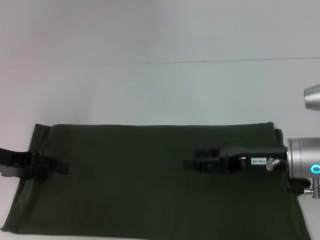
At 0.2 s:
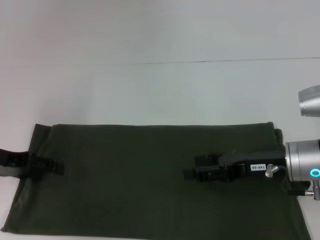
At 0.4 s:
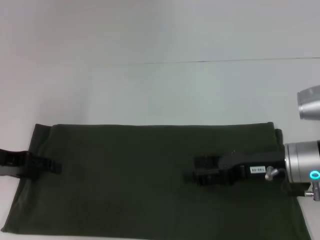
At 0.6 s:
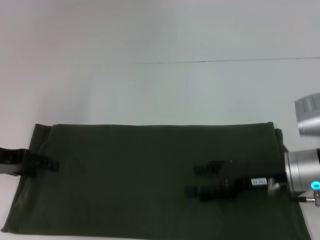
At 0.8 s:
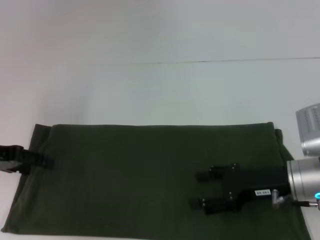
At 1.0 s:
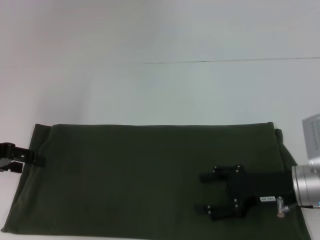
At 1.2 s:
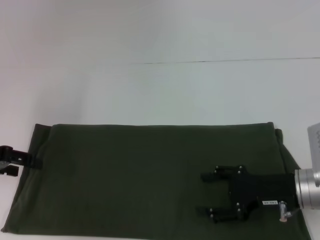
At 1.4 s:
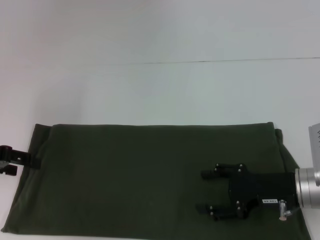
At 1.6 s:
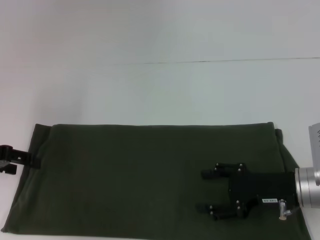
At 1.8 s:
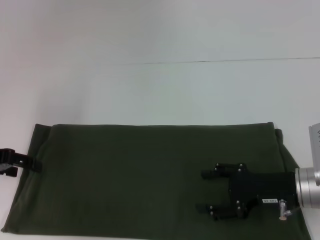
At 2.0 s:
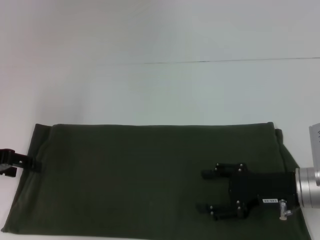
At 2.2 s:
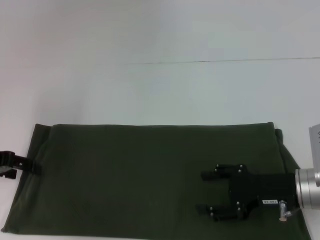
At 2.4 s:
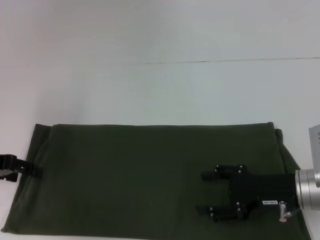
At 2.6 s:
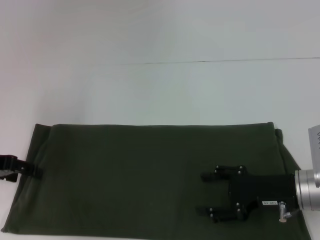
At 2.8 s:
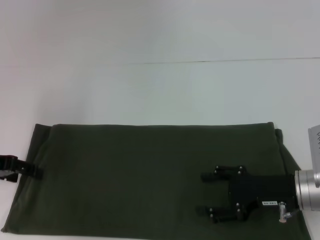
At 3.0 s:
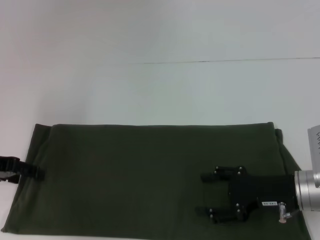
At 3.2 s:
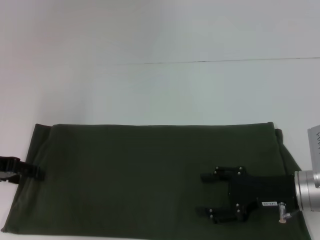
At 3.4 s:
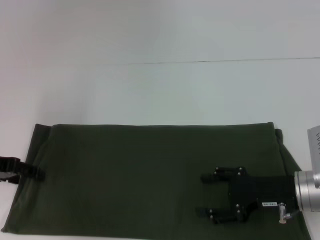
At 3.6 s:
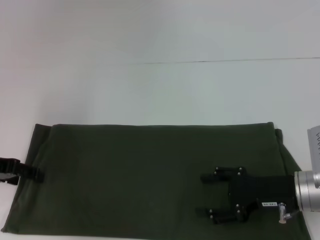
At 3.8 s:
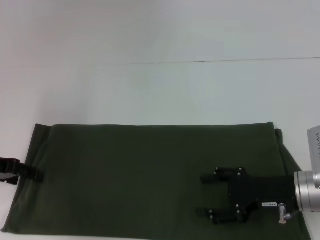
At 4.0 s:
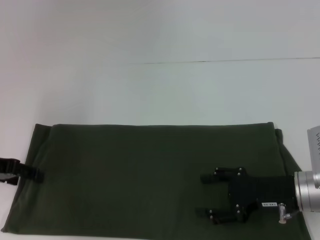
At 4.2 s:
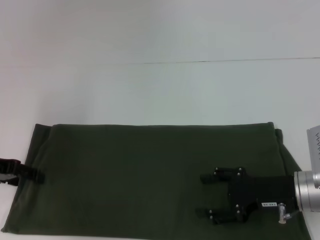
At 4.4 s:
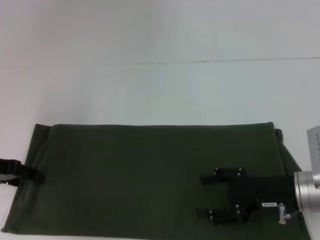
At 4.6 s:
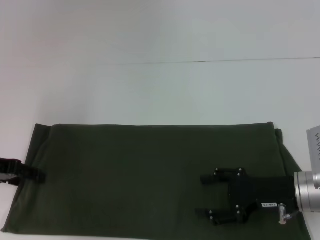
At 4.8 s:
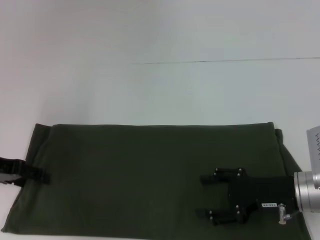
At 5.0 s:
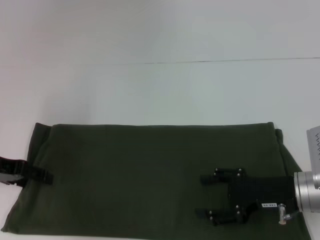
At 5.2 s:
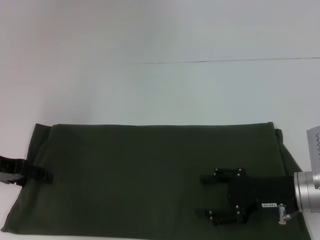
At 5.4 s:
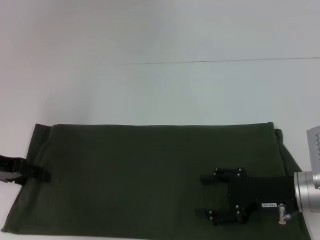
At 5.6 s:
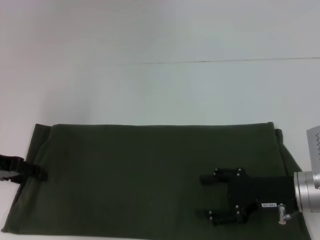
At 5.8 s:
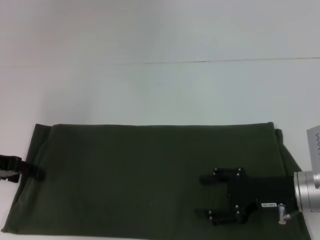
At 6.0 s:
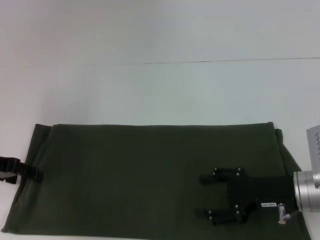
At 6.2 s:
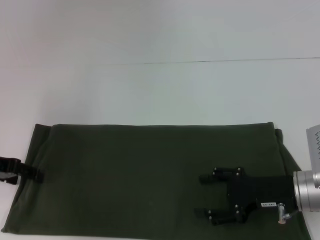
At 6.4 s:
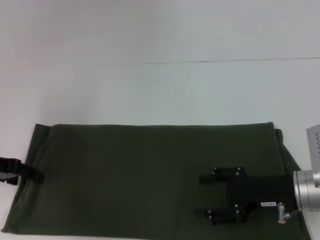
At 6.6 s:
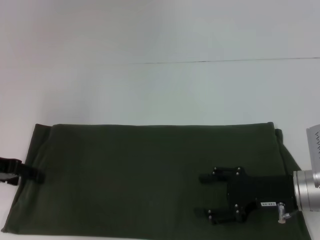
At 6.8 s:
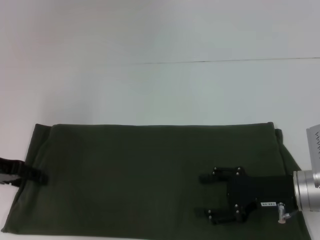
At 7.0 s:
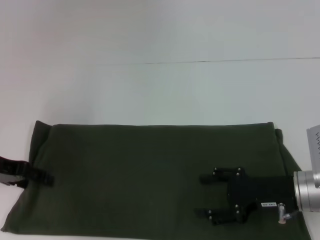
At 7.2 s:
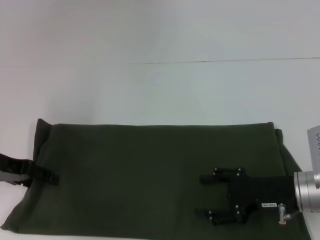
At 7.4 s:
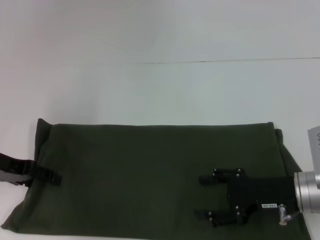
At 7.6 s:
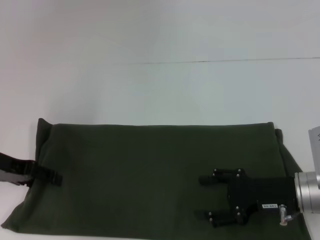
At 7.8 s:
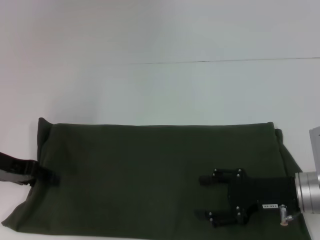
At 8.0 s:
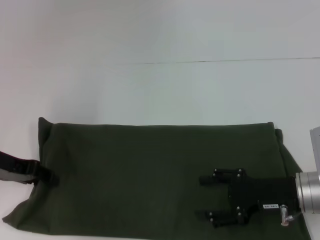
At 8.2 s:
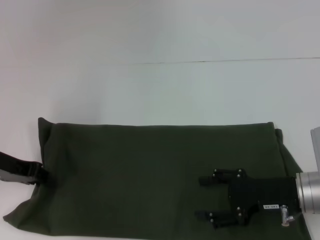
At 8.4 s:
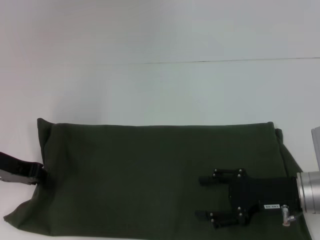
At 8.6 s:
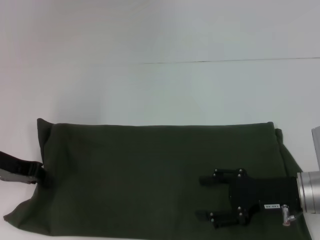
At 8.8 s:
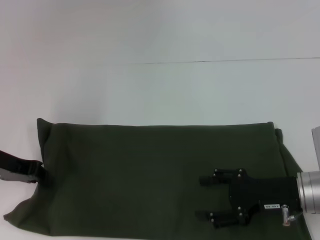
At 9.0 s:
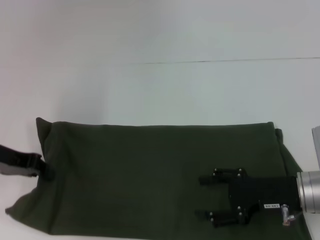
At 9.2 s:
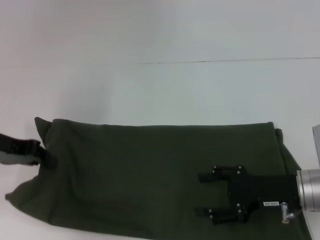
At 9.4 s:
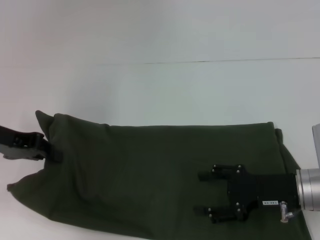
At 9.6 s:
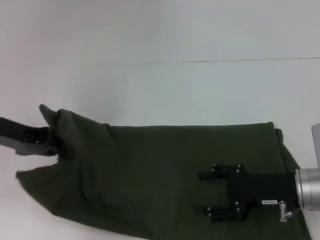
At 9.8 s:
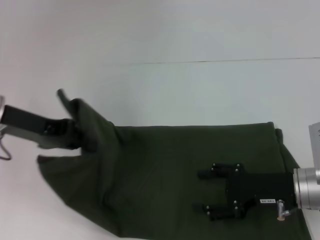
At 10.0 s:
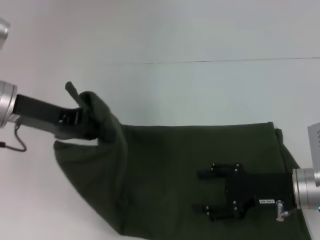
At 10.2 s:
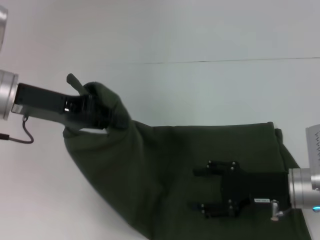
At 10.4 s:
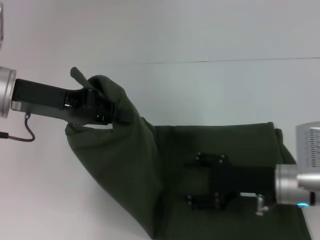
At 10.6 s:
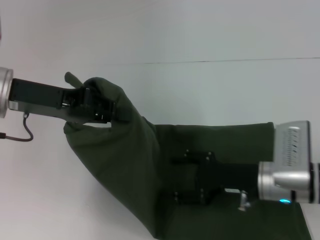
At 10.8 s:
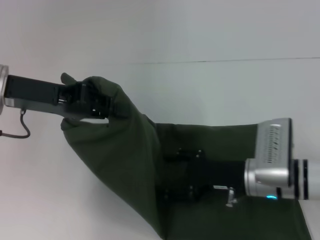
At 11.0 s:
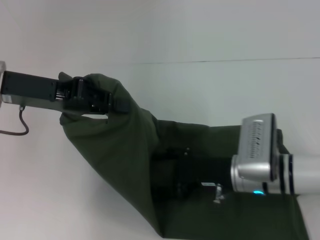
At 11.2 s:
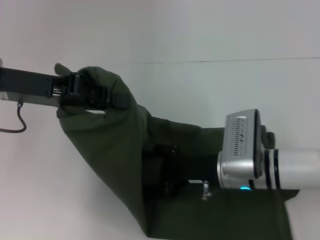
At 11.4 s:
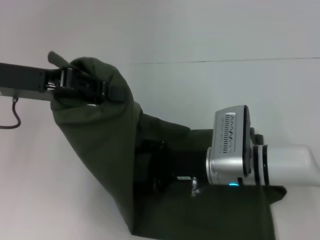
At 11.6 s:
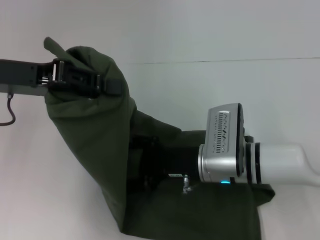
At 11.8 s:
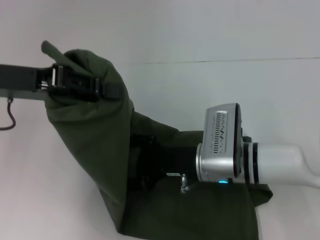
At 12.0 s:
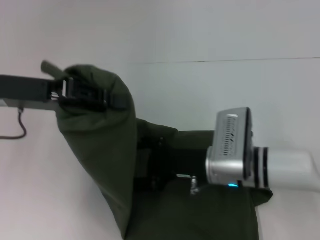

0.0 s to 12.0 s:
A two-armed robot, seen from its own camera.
1.6 to 3.0 s: The grippers stay close to where they were, moving slightly.
3.0 to 6.0 s: Both grippers stay about where they are.
6.0 to 7.6 s: The grippers make only small movements.
7.6 to 9.0 s: The left gripper closes up.
9.0 to 10.4 s: The left gripper moves upward and to the right, about 10 cm.
10.4 to 12.0 s: The right gripper heads to the left, covering approximately 10 cm.

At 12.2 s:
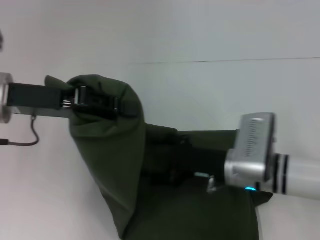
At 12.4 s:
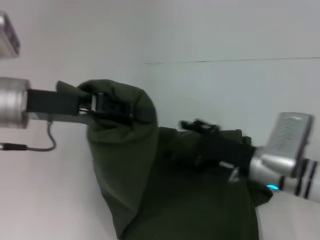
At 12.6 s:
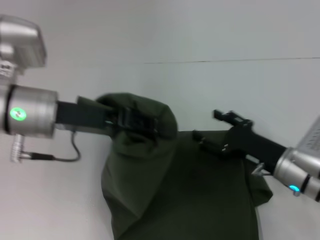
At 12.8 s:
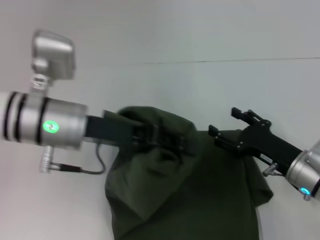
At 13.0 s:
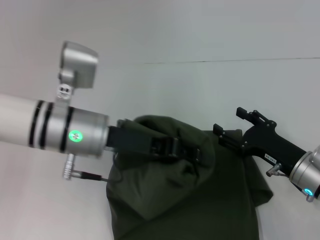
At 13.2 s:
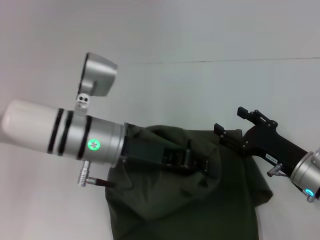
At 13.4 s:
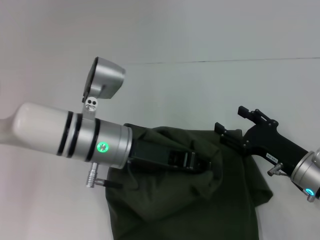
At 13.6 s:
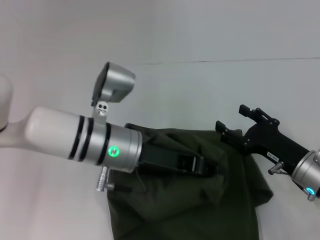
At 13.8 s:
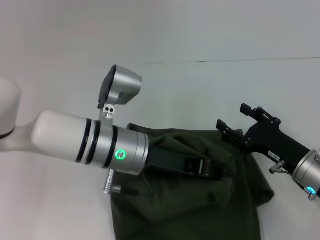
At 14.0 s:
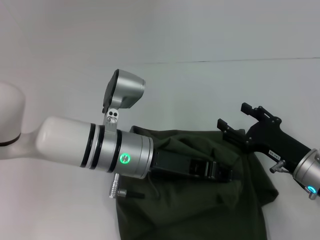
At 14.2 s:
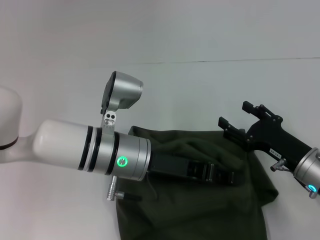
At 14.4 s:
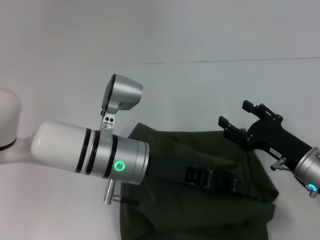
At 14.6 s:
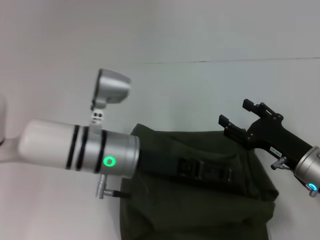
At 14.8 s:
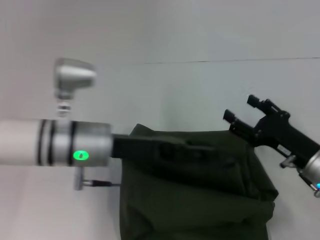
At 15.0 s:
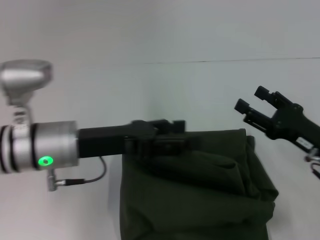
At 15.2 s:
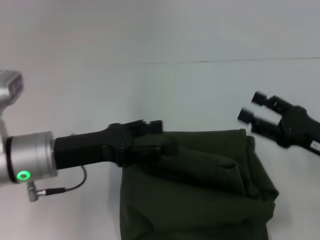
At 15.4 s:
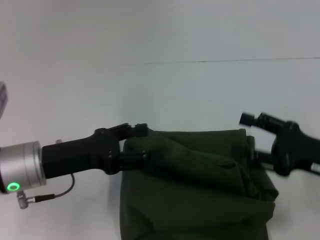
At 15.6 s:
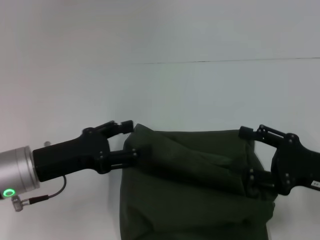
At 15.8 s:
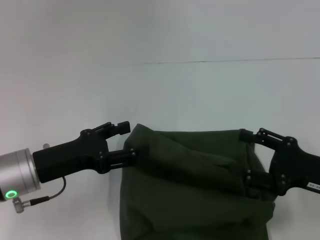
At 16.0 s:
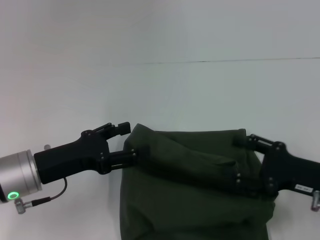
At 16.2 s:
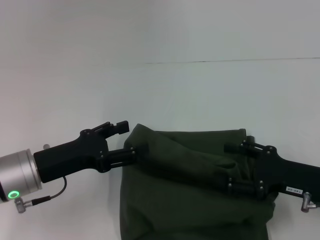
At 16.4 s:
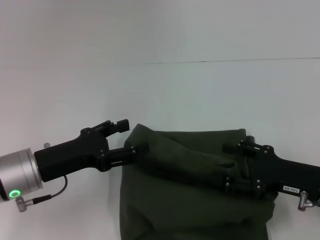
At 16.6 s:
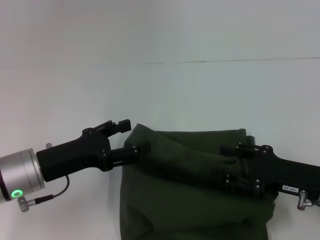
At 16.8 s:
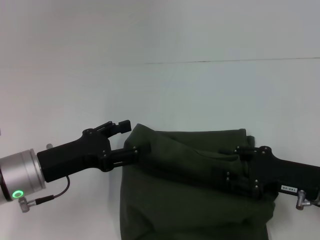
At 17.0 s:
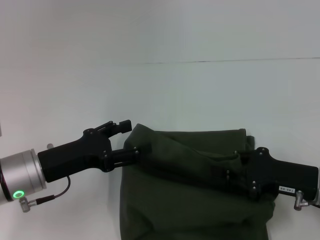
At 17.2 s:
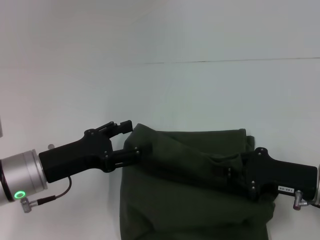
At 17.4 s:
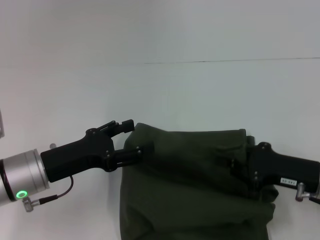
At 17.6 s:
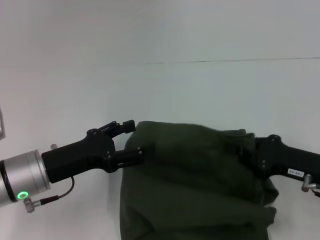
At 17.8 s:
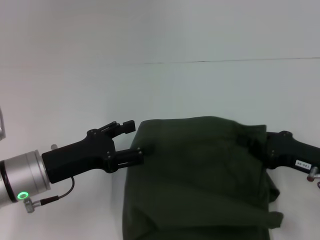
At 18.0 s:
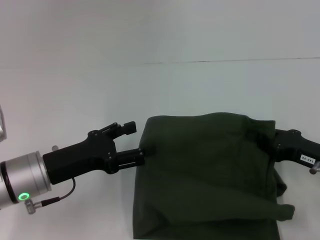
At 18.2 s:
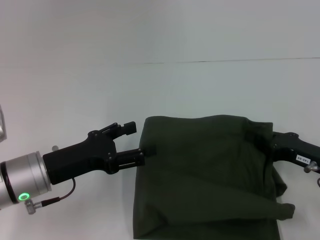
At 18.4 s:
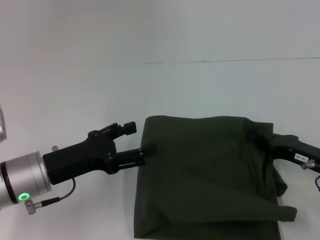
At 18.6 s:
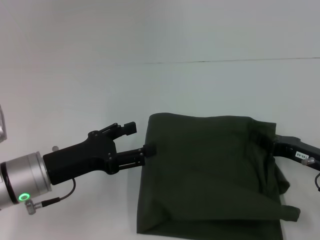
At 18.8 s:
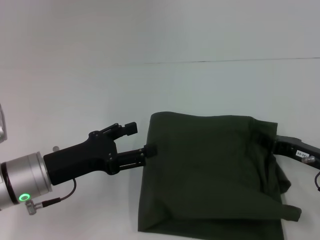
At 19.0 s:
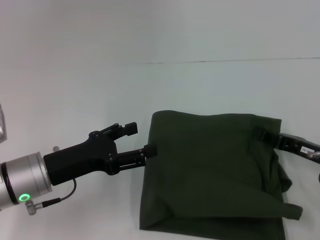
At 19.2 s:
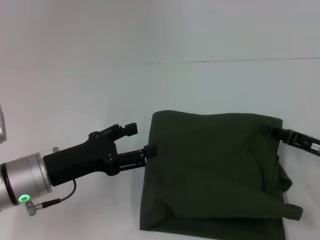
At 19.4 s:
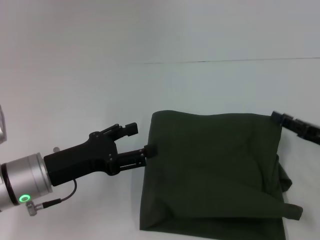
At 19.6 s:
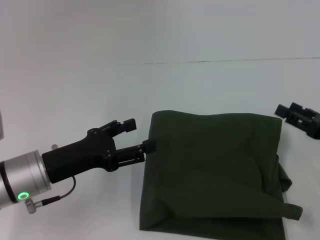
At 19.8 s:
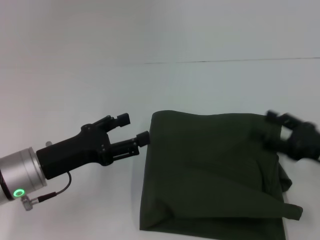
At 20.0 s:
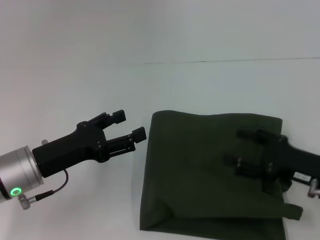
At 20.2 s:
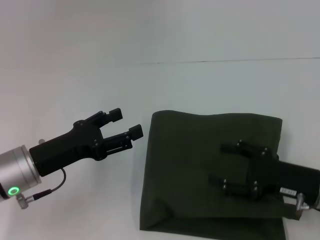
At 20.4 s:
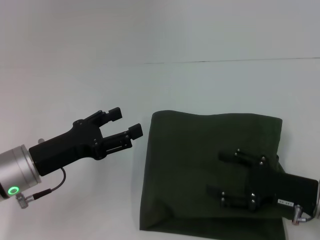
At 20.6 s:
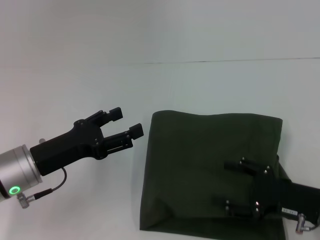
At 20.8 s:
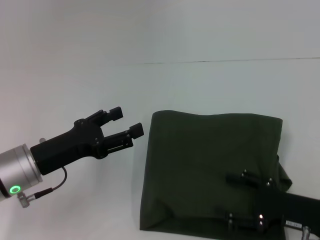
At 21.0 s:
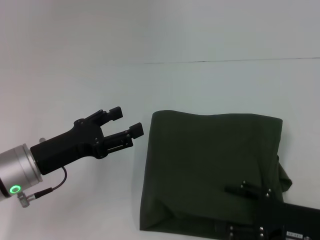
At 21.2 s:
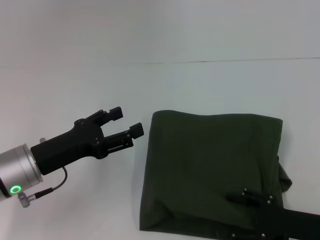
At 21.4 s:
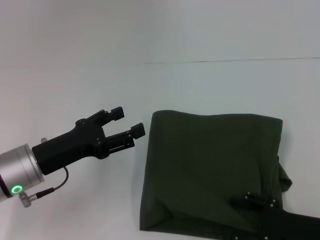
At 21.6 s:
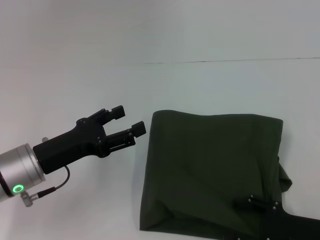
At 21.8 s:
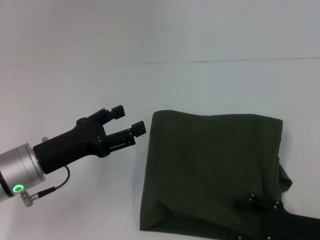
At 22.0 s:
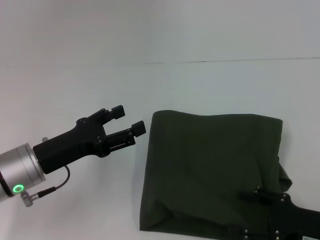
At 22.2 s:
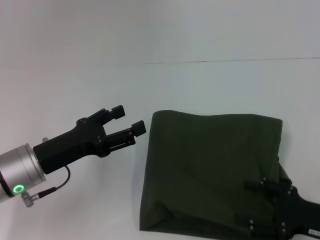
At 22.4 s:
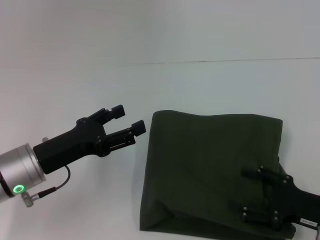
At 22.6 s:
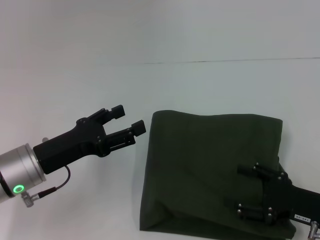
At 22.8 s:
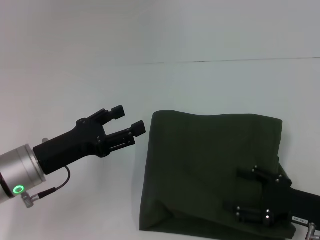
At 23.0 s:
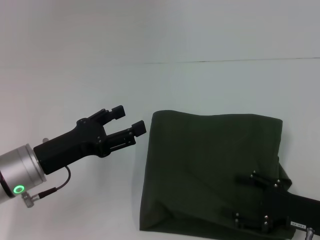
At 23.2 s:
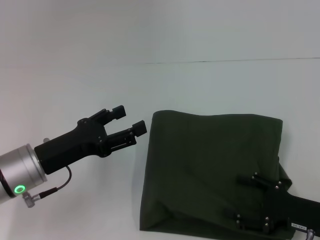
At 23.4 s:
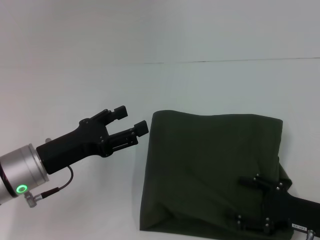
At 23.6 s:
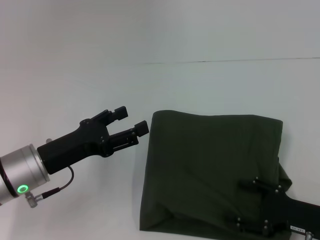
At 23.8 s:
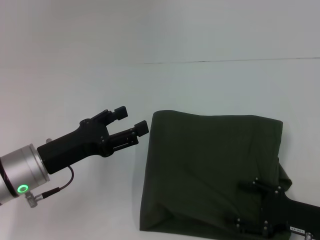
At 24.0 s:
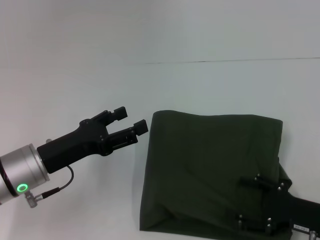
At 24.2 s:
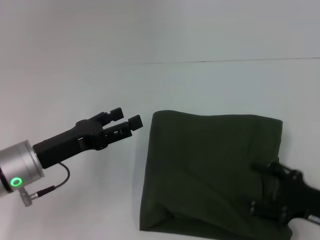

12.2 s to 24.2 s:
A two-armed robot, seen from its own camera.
Step, 12.2 to 14.4 s: Fold the clothes with your left hand.
12.2 to 13.8 s: The right gripper goes some 10 cm to the right. The left gripper travels to the right and downward by about 15 cm.
13.8 to 15.2 s: The right gripper heads upward, covering some 5 cm. The left gripper is displaced to the left by approximately 10 cm, and opens up.
16.6 to 18.2 s: The right gripper closes up.
18.2 to 19.8 s: The right gripper opens its fingers.
19.8 to 21.2 s: The right gripper goes some 10 cm backward and downward.
21.2 to 24.2 s: There are only small adjustments of the grippers.
